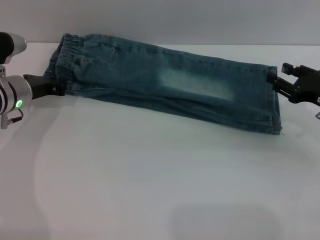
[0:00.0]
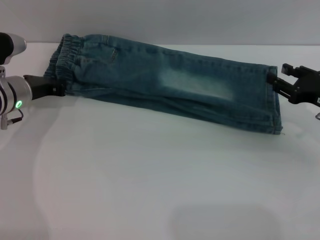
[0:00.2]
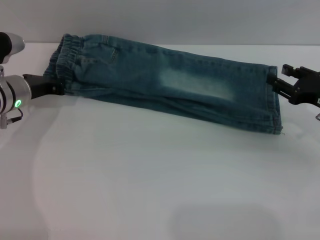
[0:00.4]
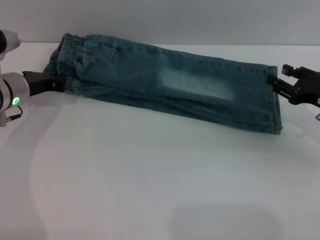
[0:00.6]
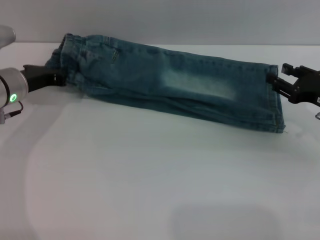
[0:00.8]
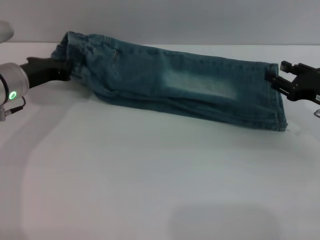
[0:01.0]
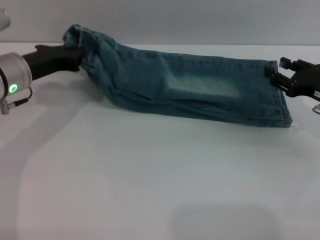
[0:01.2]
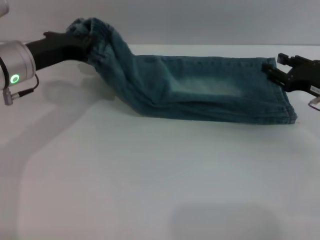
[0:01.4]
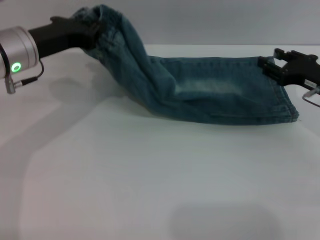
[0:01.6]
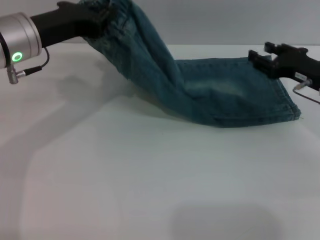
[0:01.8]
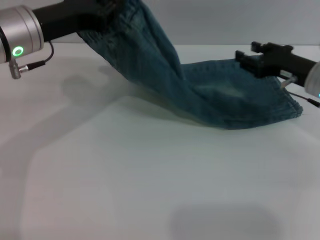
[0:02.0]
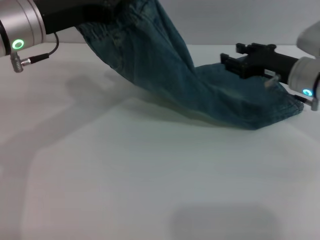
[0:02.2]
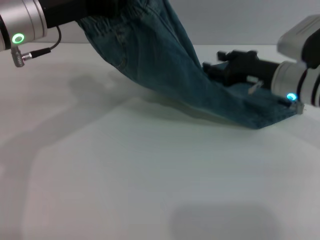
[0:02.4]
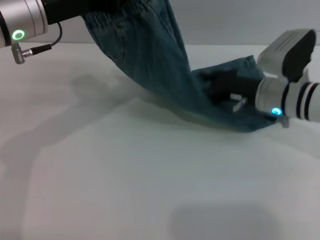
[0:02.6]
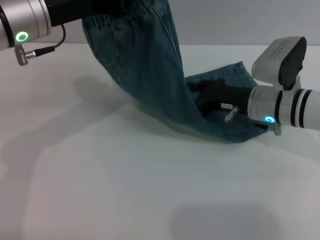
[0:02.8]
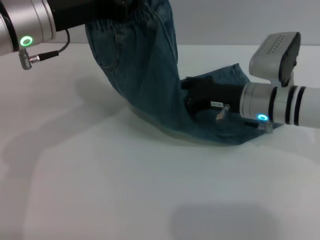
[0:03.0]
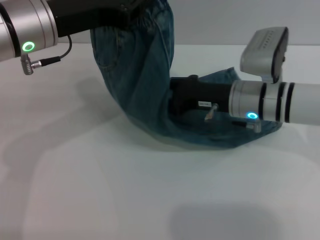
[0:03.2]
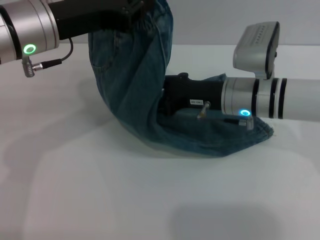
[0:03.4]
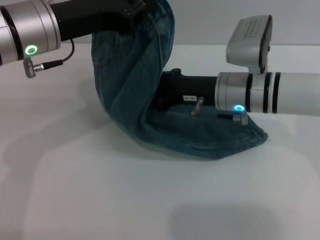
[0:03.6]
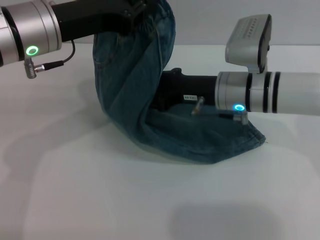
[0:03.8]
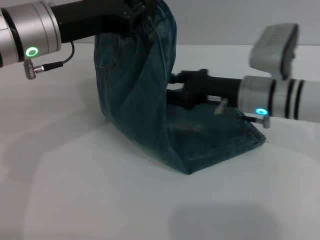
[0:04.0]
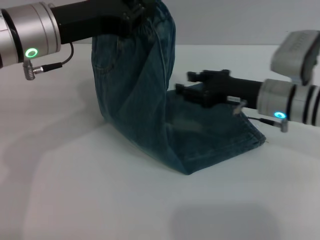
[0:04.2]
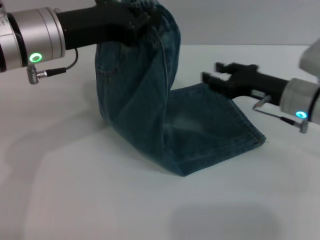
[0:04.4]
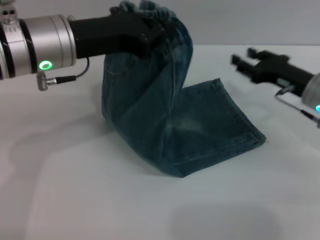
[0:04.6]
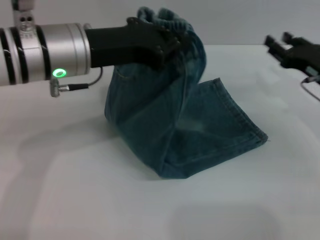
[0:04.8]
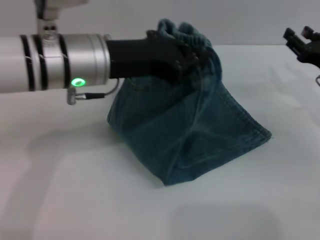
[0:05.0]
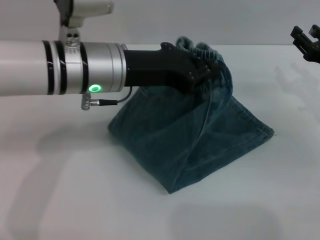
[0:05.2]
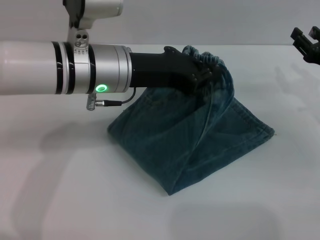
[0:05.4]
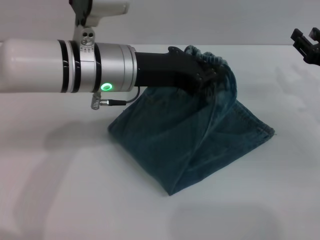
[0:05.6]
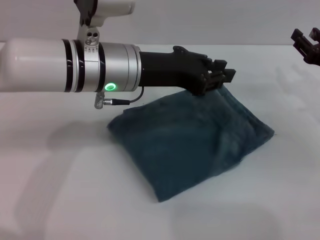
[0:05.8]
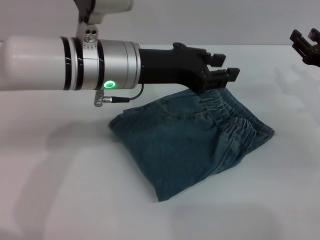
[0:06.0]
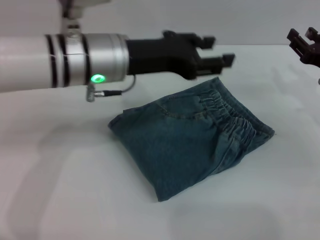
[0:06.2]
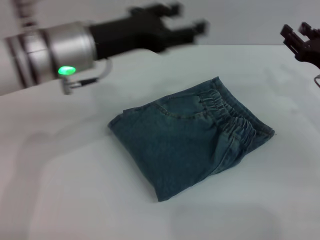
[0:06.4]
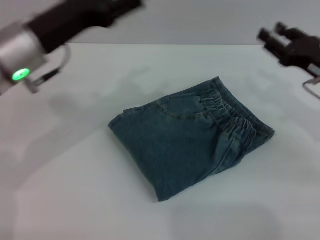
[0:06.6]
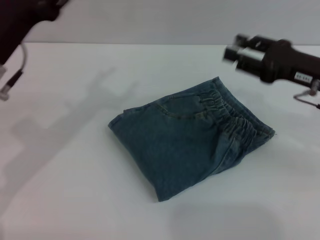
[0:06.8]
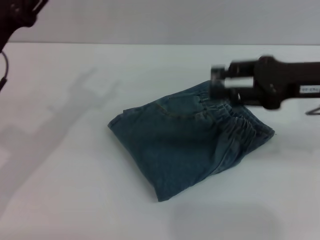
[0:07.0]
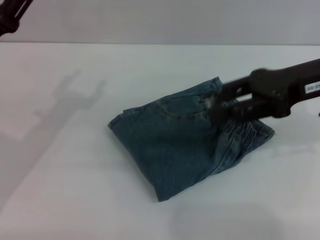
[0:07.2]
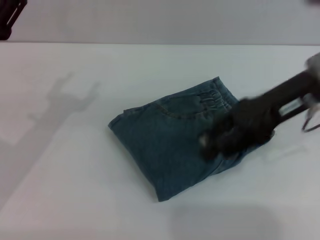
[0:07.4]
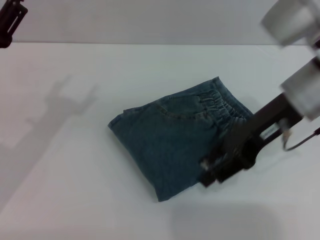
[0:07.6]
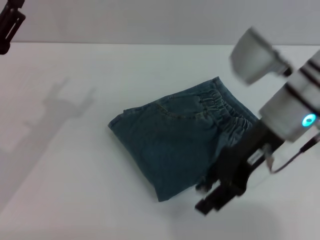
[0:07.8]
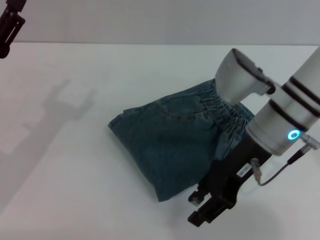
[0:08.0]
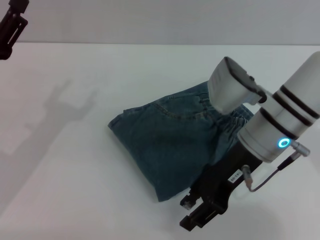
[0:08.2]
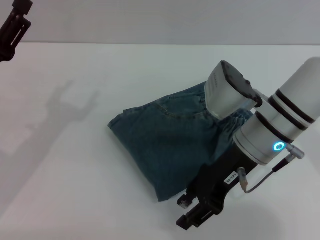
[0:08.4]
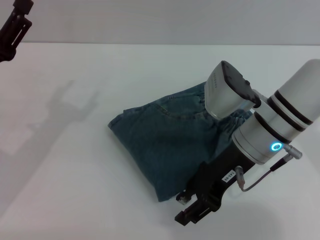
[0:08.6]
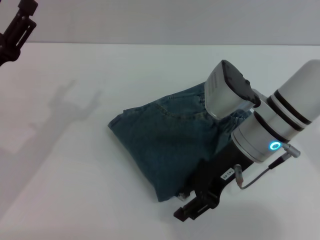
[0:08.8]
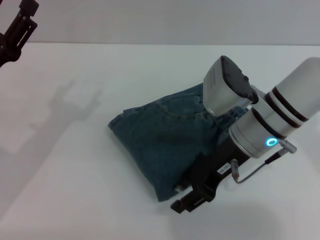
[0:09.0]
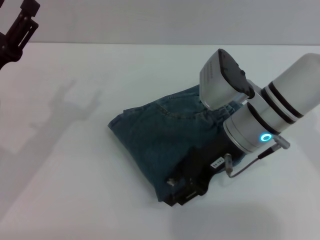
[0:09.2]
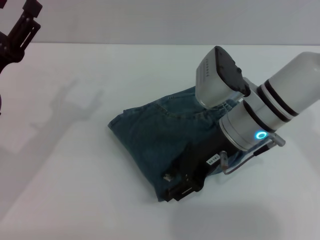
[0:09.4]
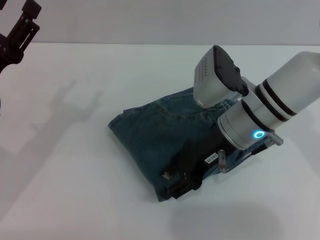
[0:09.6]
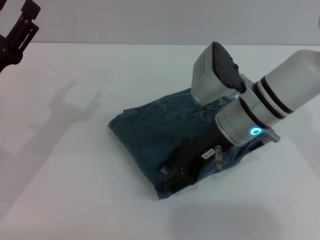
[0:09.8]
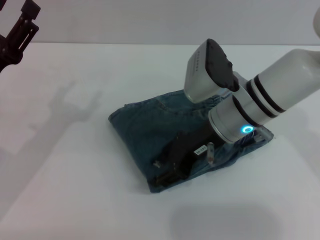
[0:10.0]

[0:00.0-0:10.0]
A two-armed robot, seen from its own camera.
Step, 0:00.0 to 0:05.8: Fold the pants from left to right with the left gripper.
0:00.0 to 0:01.4: The left gripper goes roughly 10 cm upward.
0:01.4 to 0:02.8: The right gripper travels to the left by some 15 cm. The left gripper goes approximately 10 cm upward.
0:04.2 to 0:05.8: Both grippers move to the right, about 10 cm.
0:05.8 to 0:07.2: The right gripper moves upward and to the left, about 15 cm; the left gripper goes some 15 cm to the left, and opens its fingers.
0:07.2 to 0:08.6: The right gripper shifts roughly 15 cm to the left and downward.
0:08.6 to 0:10.0: The grippers move only a little.

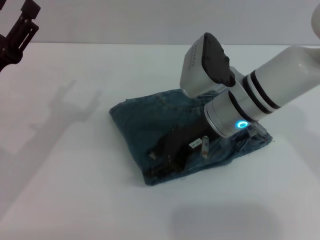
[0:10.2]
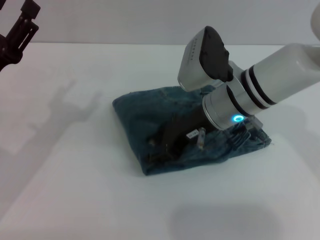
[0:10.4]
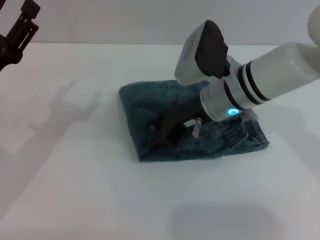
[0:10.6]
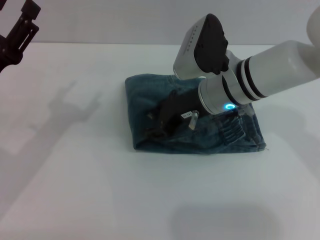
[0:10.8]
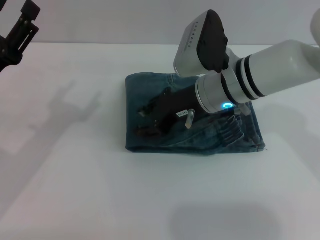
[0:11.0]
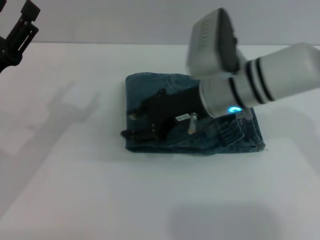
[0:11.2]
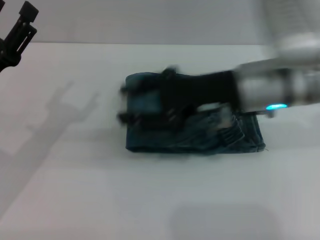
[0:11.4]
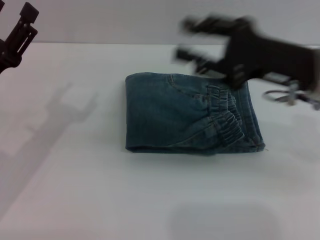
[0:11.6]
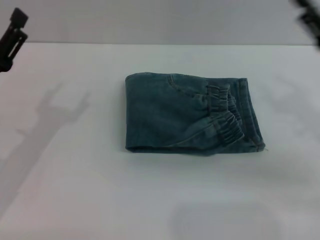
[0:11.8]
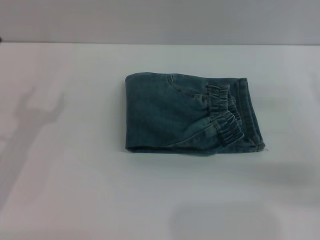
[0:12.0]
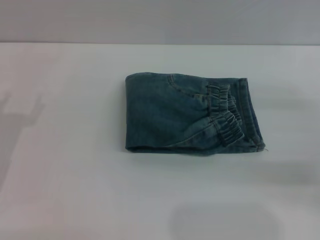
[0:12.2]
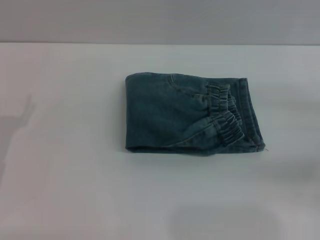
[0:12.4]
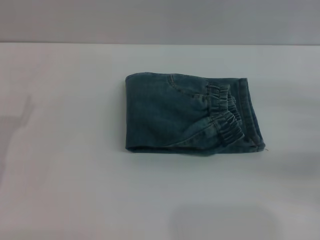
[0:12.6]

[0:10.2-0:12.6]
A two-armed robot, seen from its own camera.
0:10.2 to 0:11.4: The right gripper moves roughly 5 cm.
0:11.4 to 0:12.6: The left gripper ends up approximately 5 cm from where it was, while the right gripper heads to the right, covering about 25 cm.

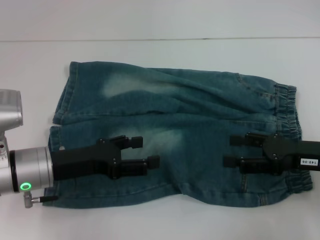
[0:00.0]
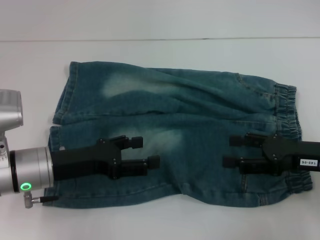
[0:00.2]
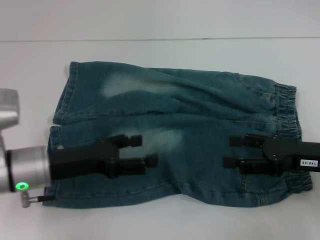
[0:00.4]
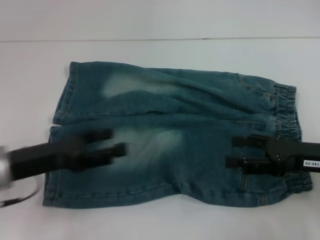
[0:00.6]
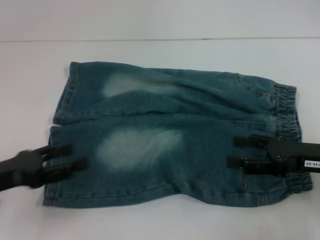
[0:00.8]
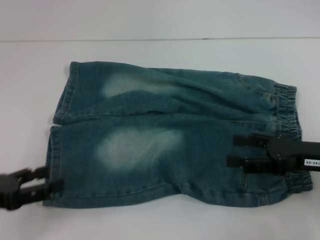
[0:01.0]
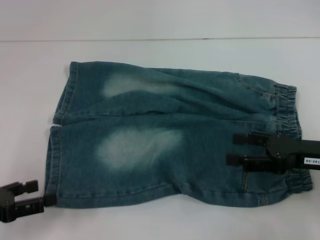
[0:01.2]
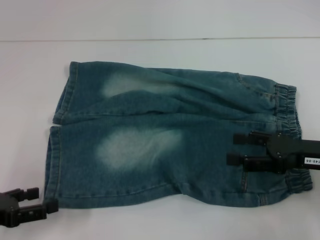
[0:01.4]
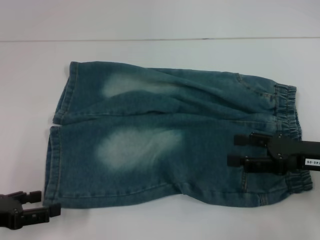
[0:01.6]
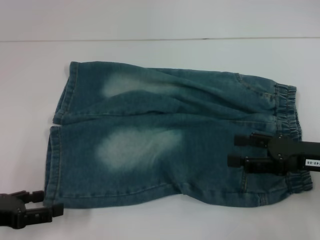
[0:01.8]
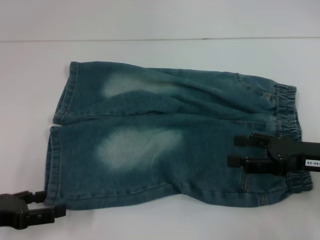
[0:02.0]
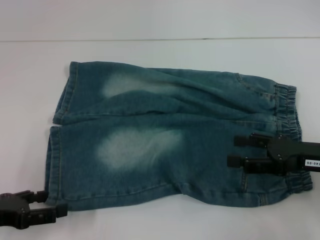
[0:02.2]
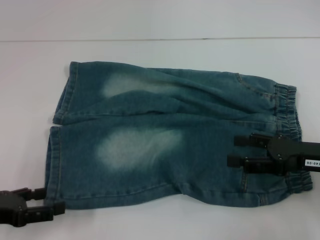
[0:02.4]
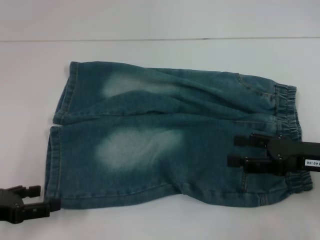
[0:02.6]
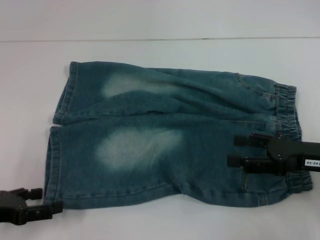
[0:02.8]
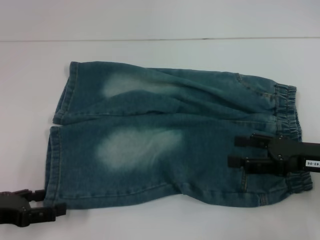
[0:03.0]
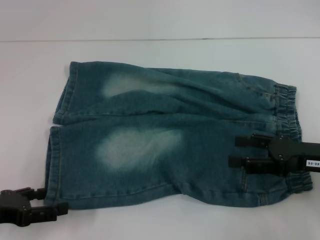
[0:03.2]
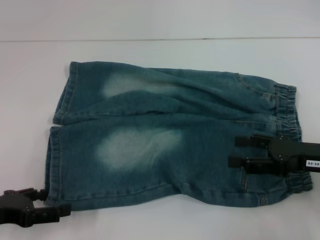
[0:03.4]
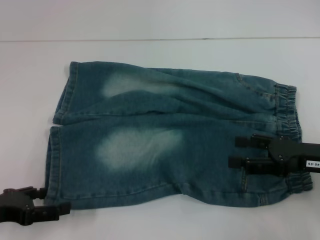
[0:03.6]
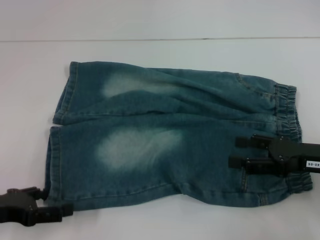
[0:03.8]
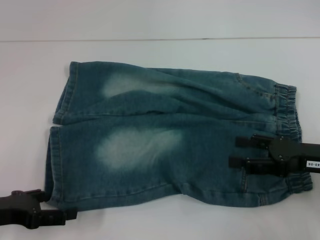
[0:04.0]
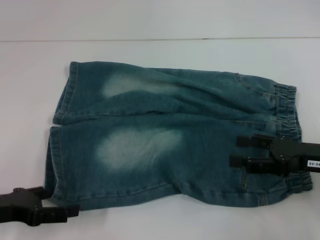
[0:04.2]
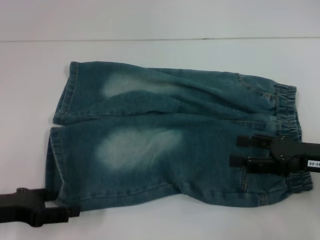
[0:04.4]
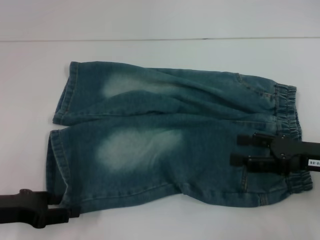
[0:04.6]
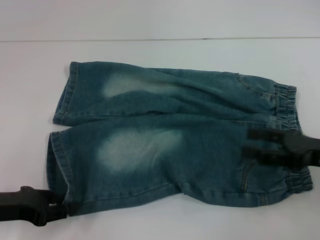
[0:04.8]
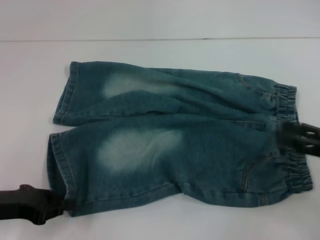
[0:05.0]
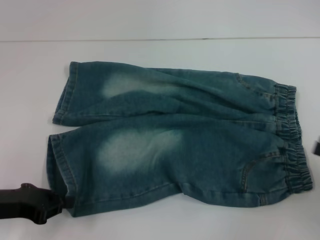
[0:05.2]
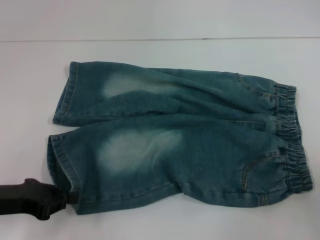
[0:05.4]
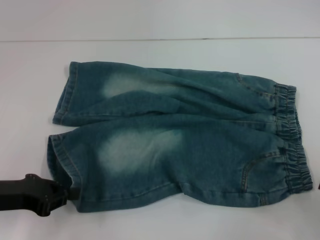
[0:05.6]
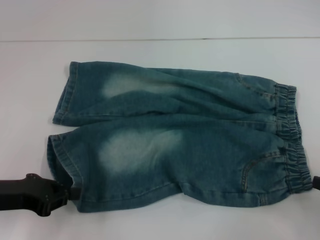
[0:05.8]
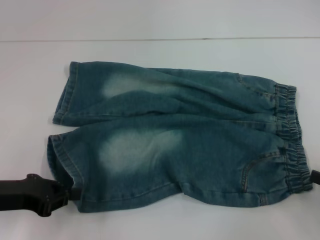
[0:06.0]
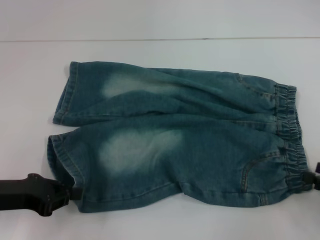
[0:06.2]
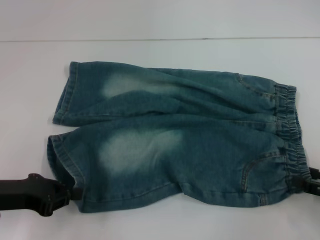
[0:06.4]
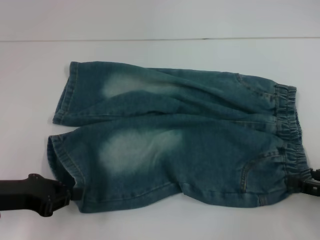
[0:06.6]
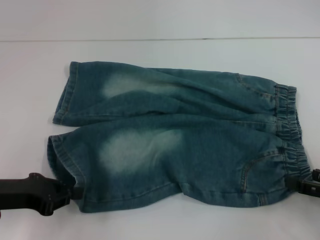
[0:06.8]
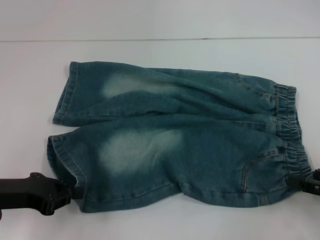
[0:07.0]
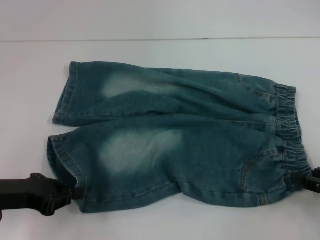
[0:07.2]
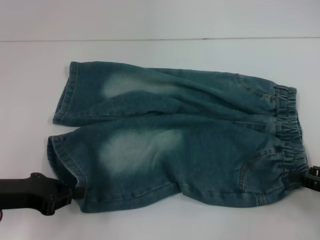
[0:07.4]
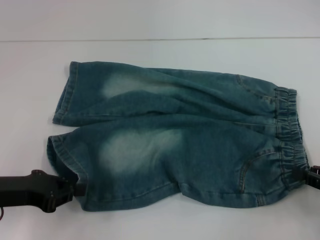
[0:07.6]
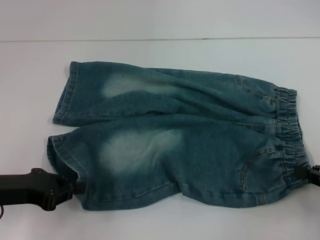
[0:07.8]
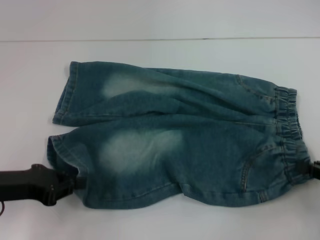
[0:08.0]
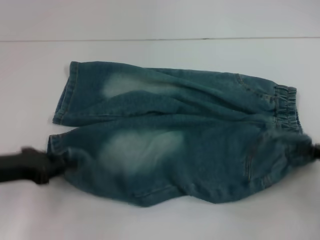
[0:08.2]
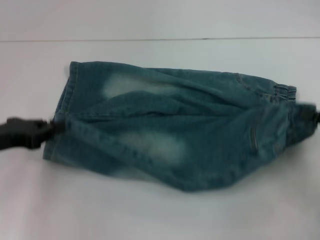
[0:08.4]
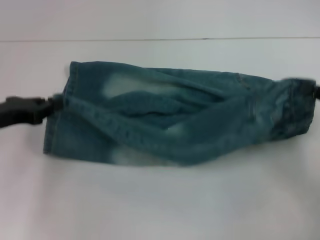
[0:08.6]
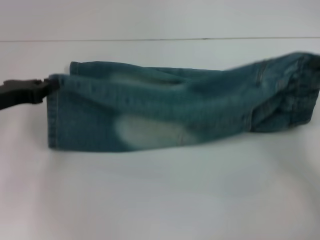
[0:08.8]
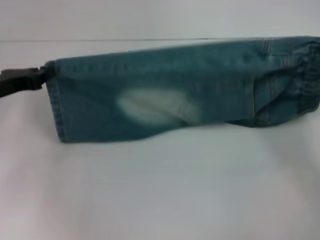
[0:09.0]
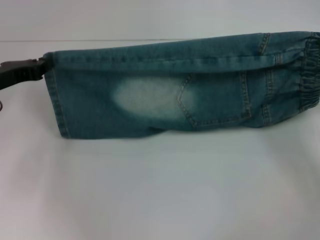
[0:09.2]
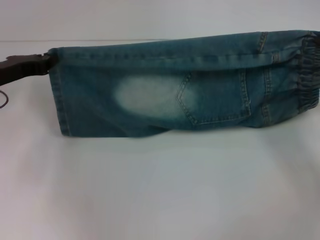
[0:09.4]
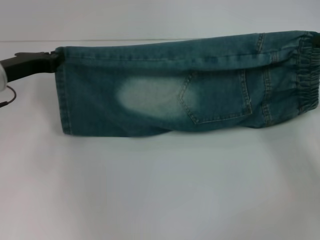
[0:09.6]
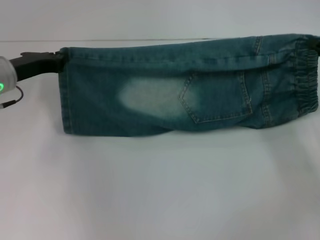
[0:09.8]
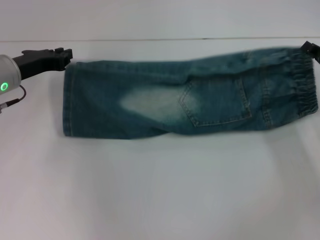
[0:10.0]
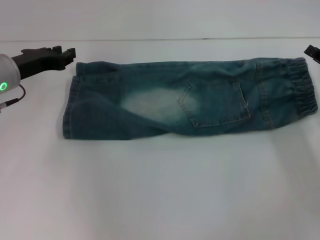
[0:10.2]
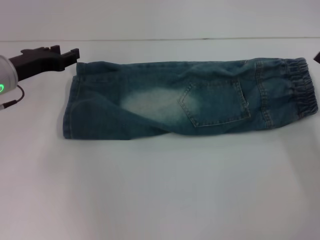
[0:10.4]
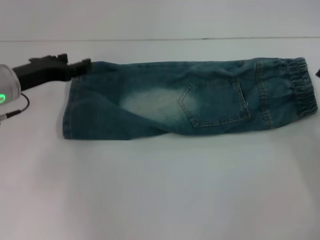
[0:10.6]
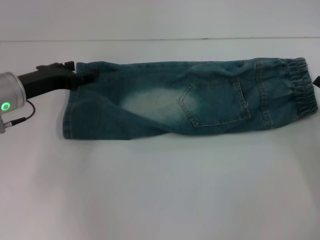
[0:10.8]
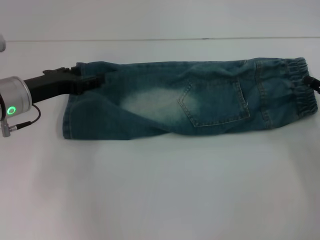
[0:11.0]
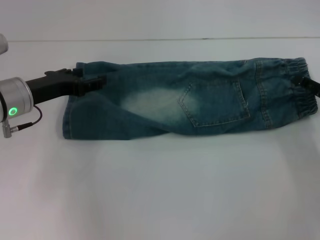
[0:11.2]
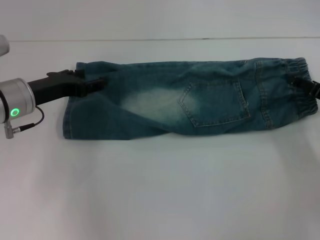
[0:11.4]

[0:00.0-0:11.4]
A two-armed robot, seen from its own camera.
Step, 0:00.0 to 0:05.6: Grab the lower left pant leg with your left hand.
Step, 0:05.8 to 0:07.8: Hold the lower right waistband with your right hand.
Step, 0:08.0 to 0:10.0: Fold upward with your right hand.
0:00.0 to 0:01.4: The left gripper goes about 15 cm to the left and backward.
0:01.4 to 0:04.2: The grippers make only small movements.
0:04.2 to 0:05.6: The right gripper is displaced to the right and backward by roughly 15 cm; the left gripper closes.
0:05.6 to 0:07.2: The right gripper shifts by some 5 cm.
0:07.2 to 0:08.6: The grippers both shift forward by about 5 cm. The right gripper closes its fingers.
0:08.6 to 0:10.0: The two grippers go some 10 cm forward.
0:10.0 to 0:11.4: The right gripper opens up. Meanwhile the left gripper opens.
